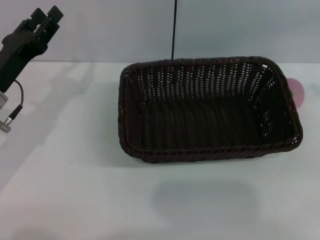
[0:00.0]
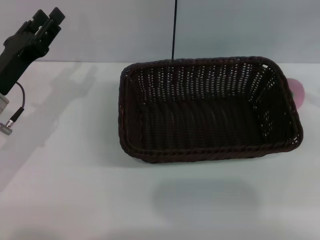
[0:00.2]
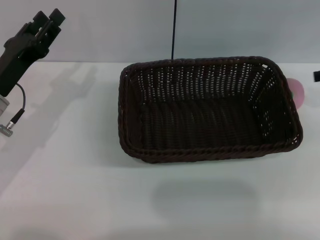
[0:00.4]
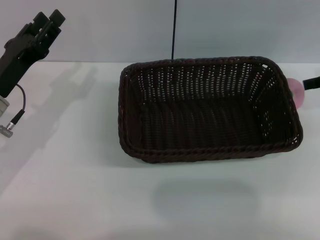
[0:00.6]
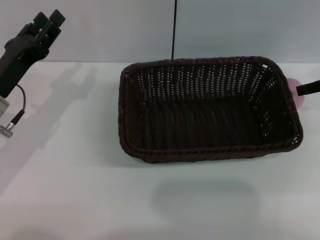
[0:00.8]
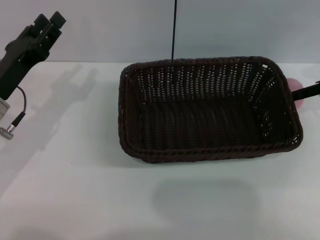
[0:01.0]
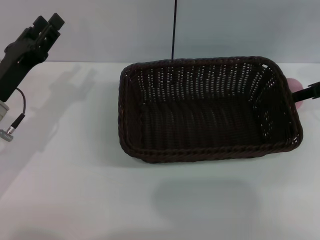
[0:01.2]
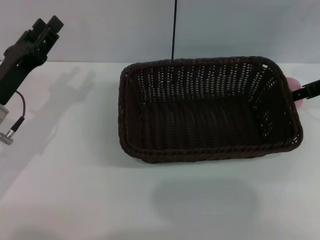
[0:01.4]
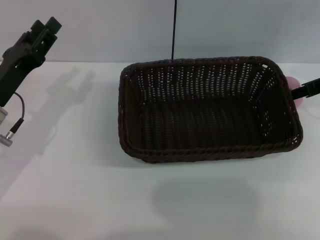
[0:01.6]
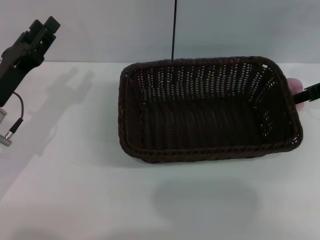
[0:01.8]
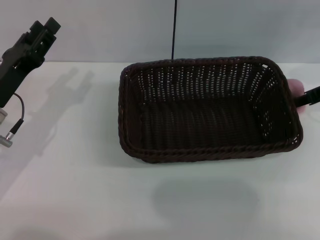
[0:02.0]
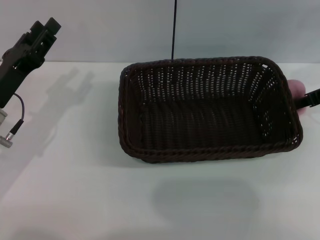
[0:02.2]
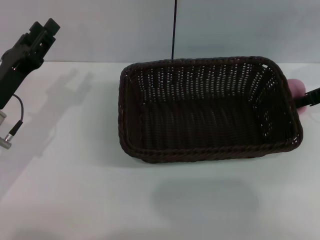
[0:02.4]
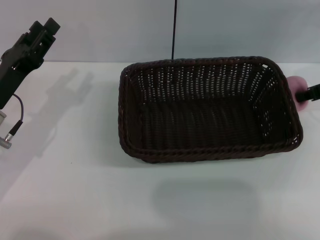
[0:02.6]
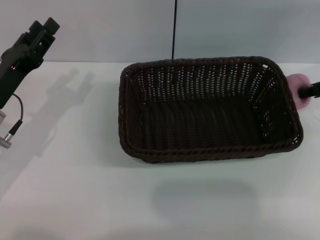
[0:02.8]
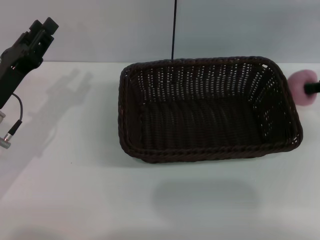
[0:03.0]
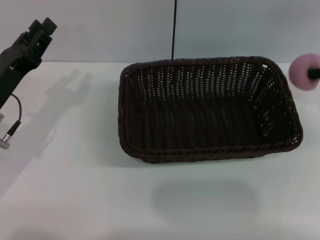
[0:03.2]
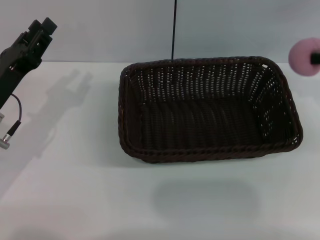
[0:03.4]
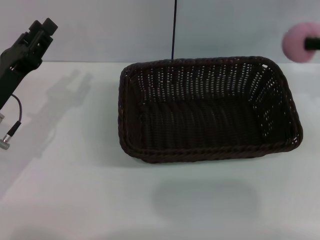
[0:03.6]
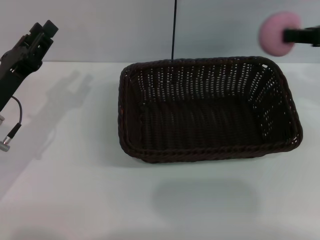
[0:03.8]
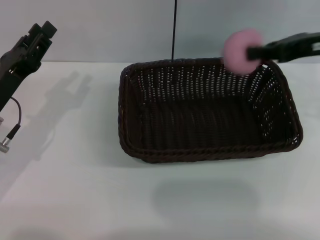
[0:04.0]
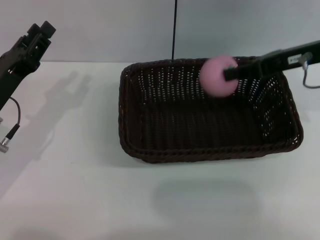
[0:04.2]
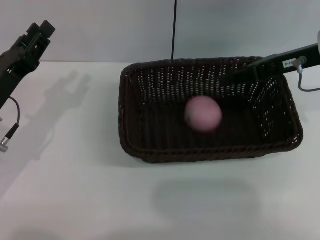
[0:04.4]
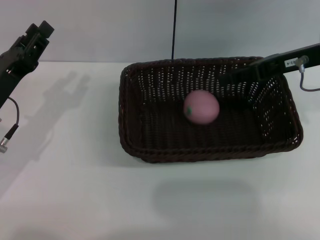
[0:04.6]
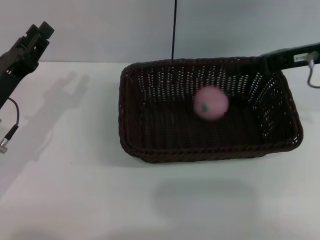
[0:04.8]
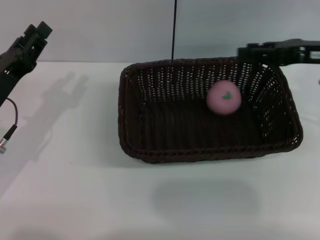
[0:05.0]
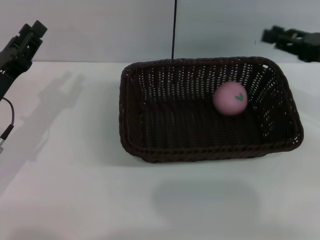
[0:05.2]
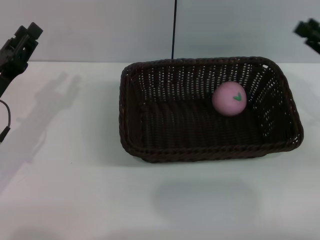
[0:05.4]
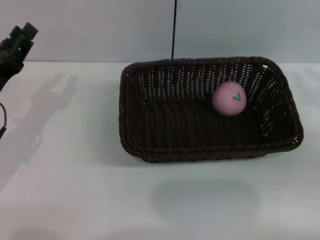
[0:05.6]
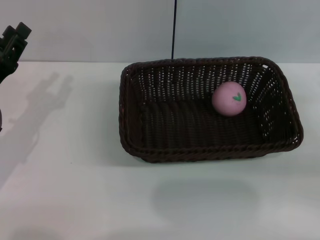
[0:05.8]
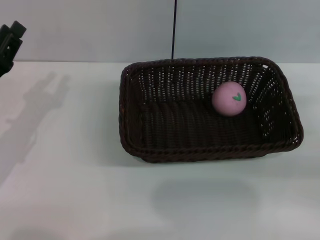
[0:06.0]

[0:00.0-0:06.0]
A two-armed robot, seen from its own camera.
0:01.6 to 0:03.0: The right gripper closes up.
0:03.0 to 0:04.4: The right gripper goes about 10 cm to the left.
0:04.4 to 0:06.0: The right gripper heads to the right, backward and downward, covering about 20 cm, and opens.
